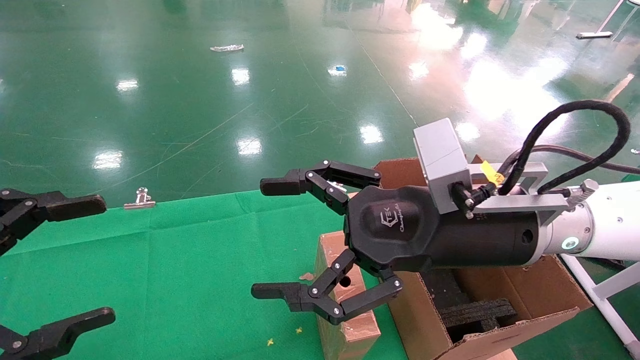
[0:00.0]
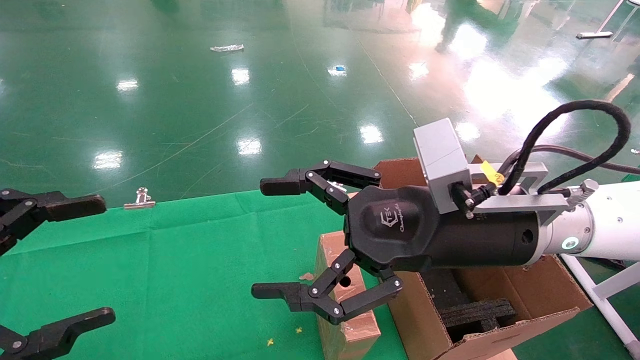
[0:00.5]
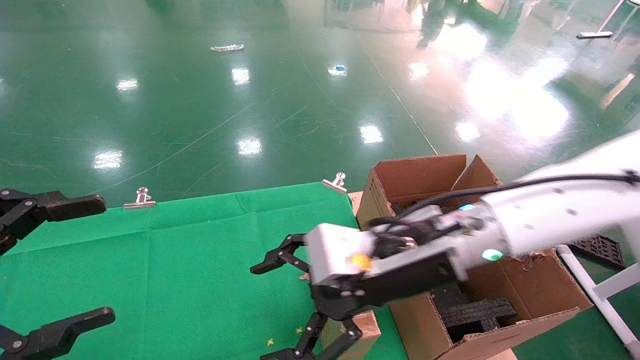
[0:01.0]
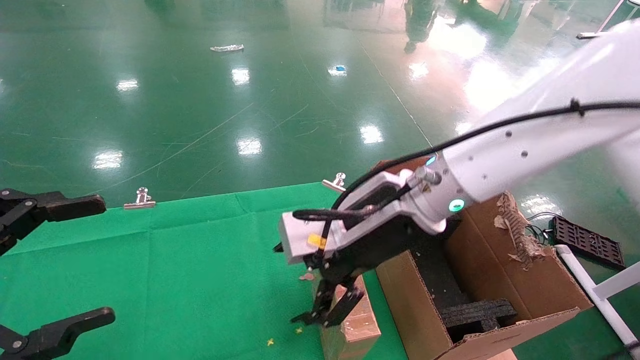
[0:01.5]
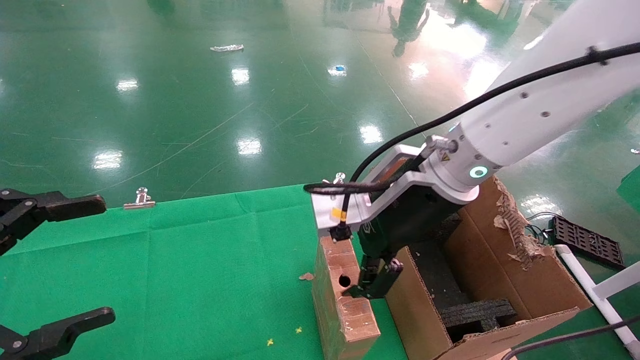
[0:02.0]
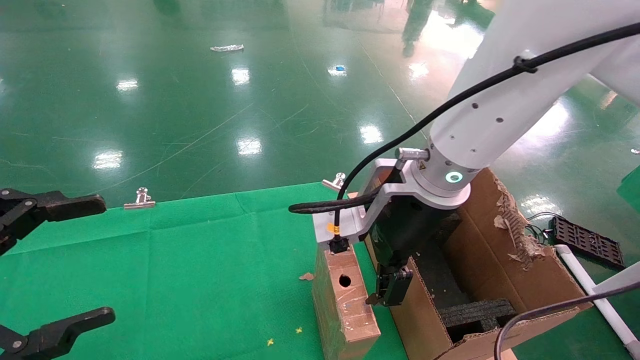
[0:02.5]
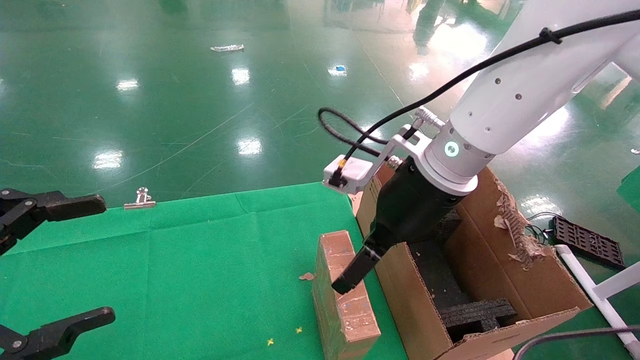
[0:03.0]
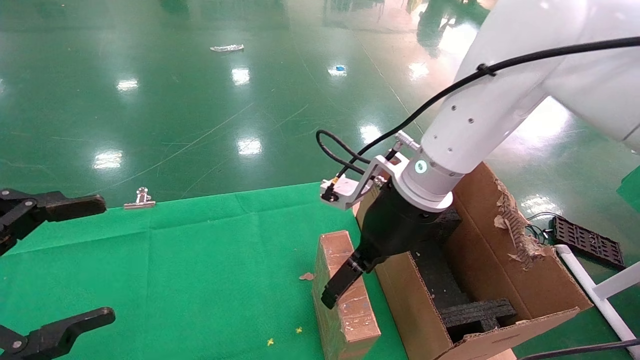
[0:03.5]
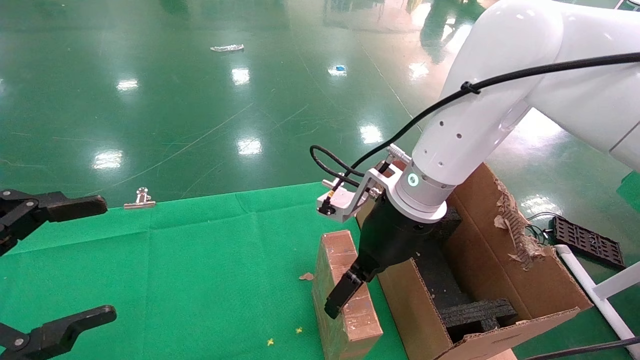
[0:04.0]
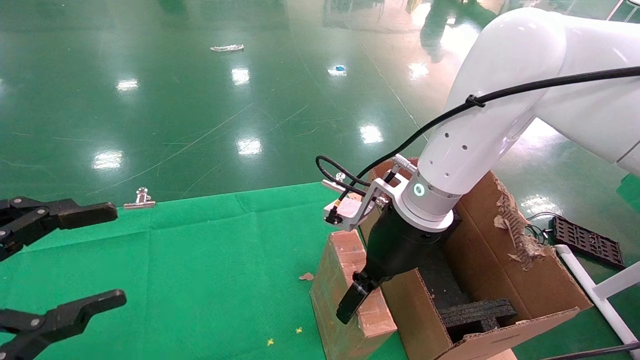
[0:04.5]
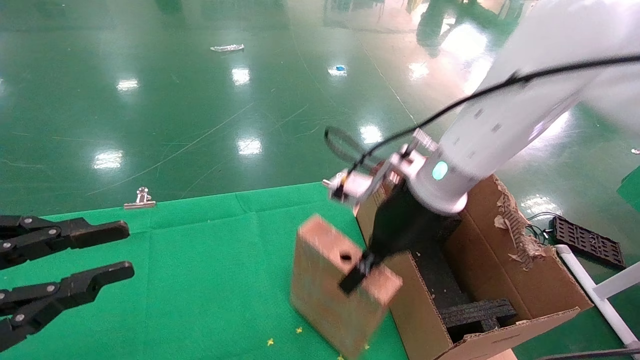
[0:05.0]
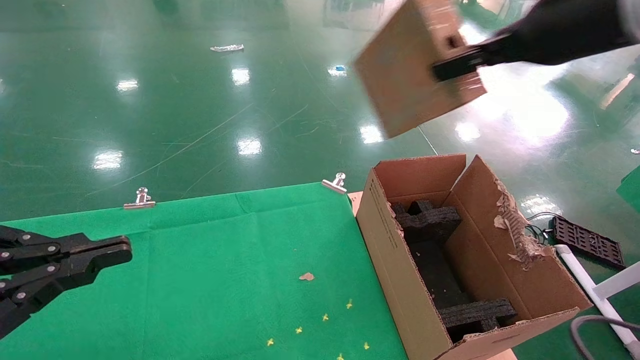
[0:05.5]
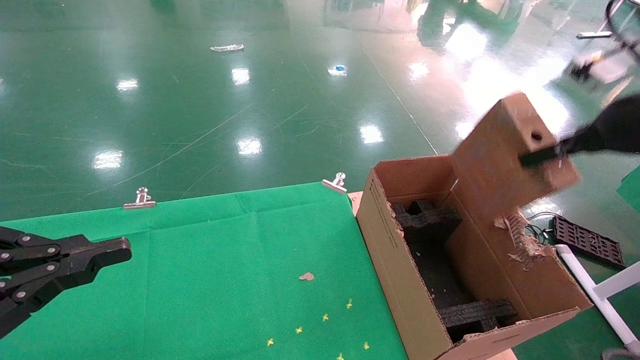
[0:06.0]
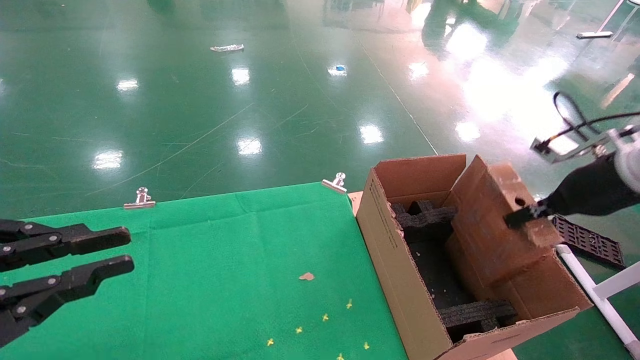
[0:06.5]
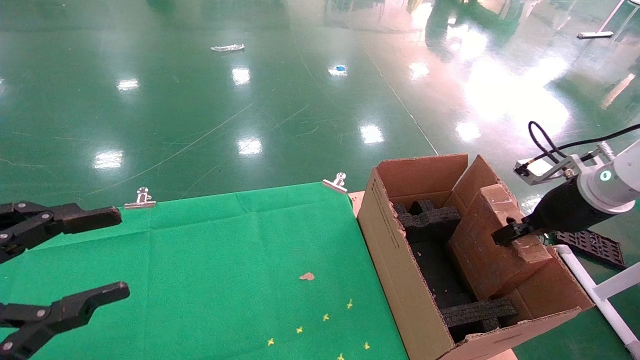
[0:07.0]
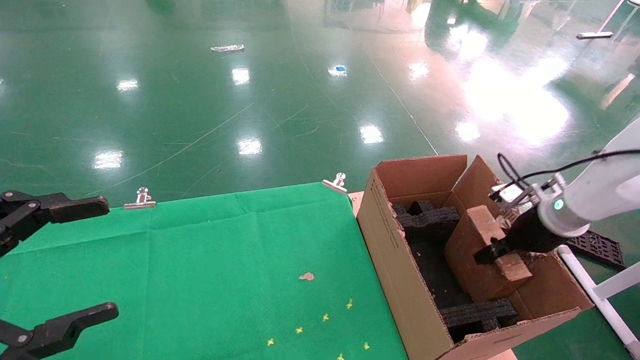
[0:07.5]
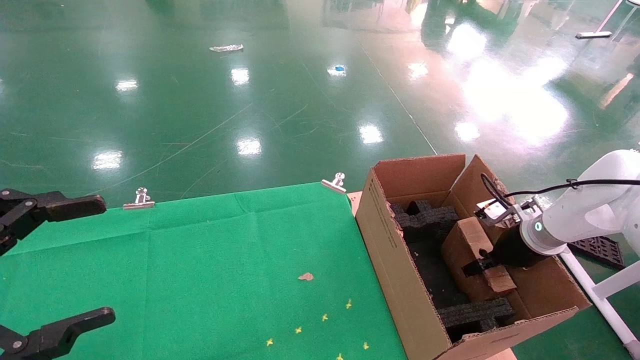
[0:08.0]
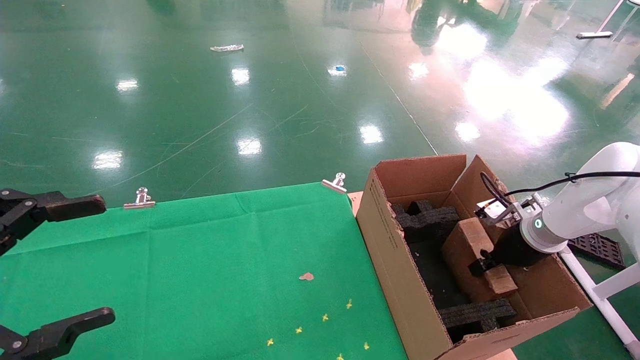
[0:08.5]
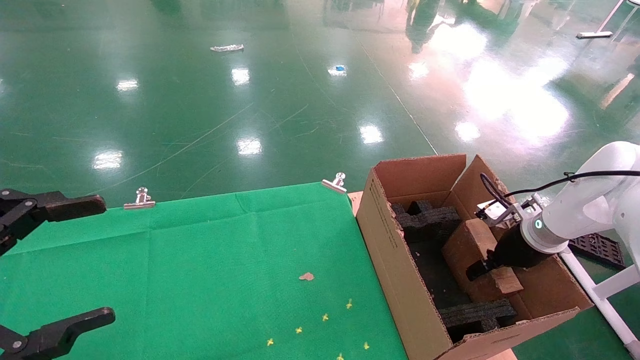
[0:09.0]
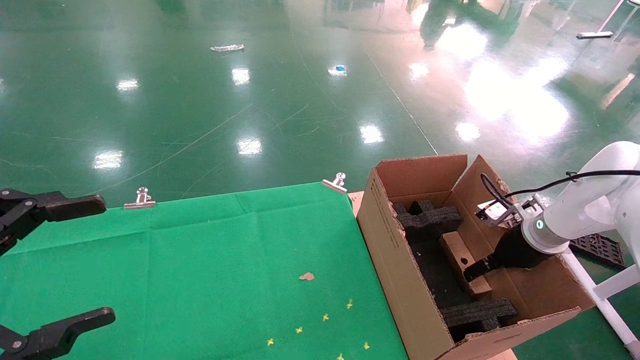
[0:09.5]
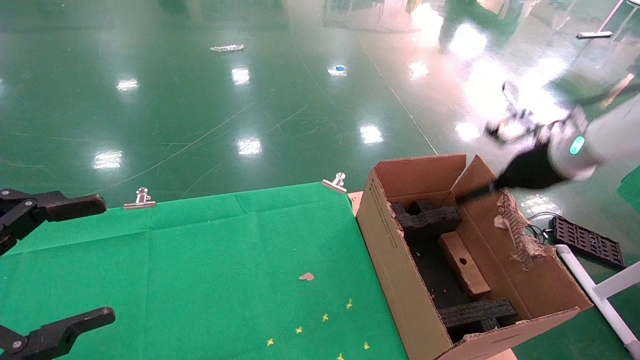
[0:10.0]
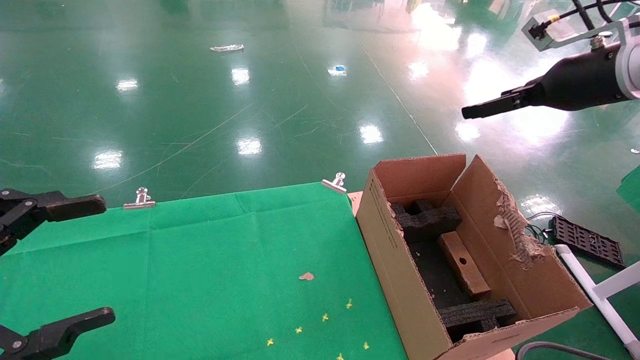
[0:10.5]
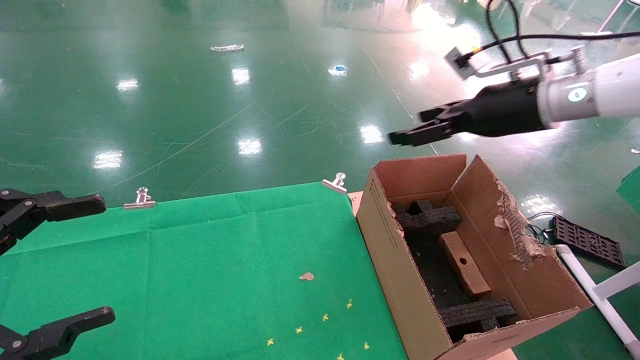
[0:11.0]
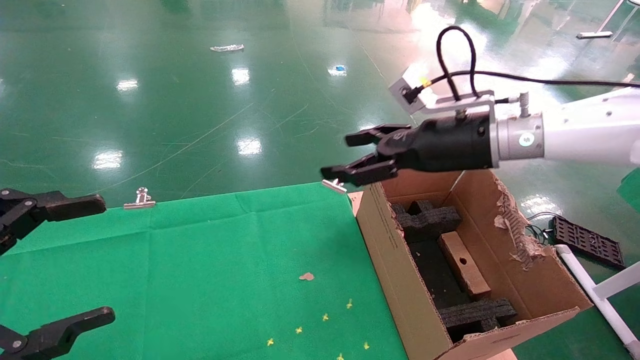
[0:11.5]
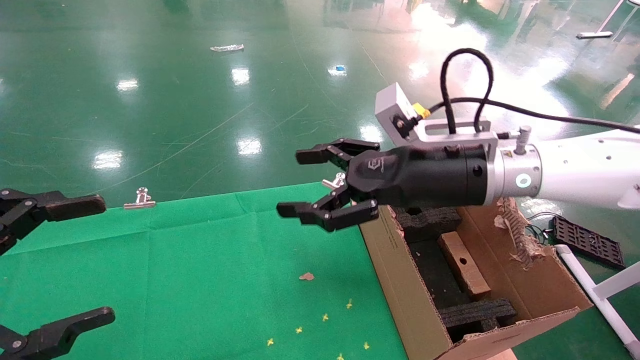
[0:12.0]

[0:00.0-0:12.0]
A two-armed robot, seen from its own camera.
Task of the whole recording: using a robotic arm to pick up a cardboard box and palace it the carton.
Step, 0:01.0 to 0:05.0: Pick up the mouse and the power cord paper box.
Step, 0:05.5 to 0:09.5: Place the mouse and the power cord paper box into the container.
0:00.0 to 0:02.0: The right gripper shifts some 5 cm forward.
0:02.0 to 0:04.0: The right gripper ends up approximately 5 cm from where it was.
0:04.0 to 0:06.0: The left gripper closes. Meanwhile the right gripper travels to the right by approximately 25 cm, and closes its fingers.
0:06.0 to 0:08.0: The left gripper opens, while the right gripper moves downward and forward, about 25 cm.
0:08.0 to 0:10.0: The right gripper is displaced upward by roughly 15 cm, and opens up.
0:10.0 to 0:12.0: The right gripper moves to the left, roughly 20 cm.

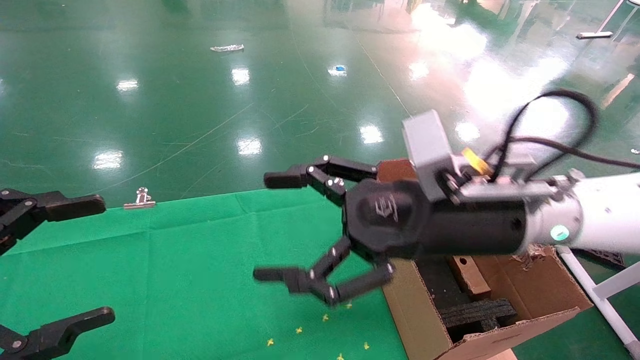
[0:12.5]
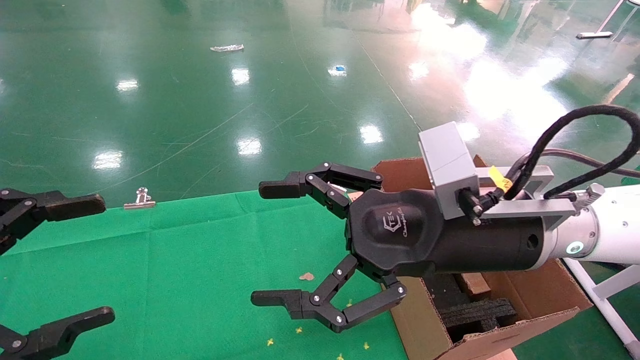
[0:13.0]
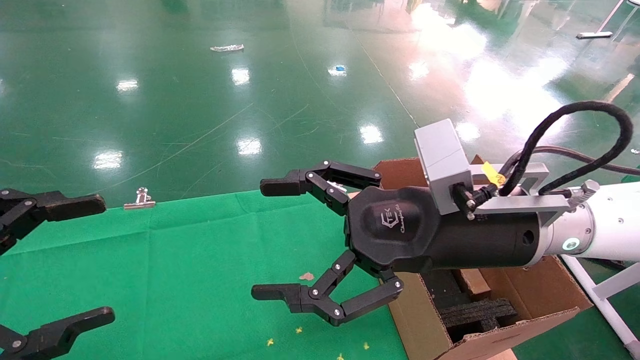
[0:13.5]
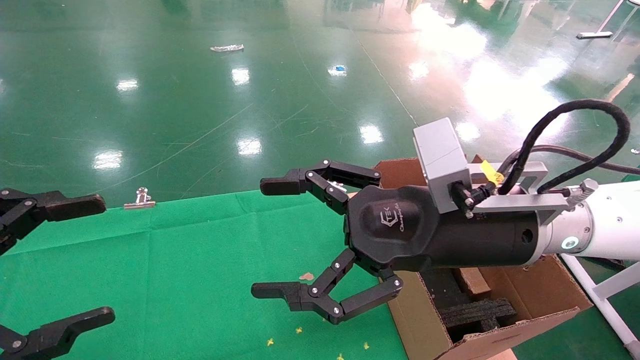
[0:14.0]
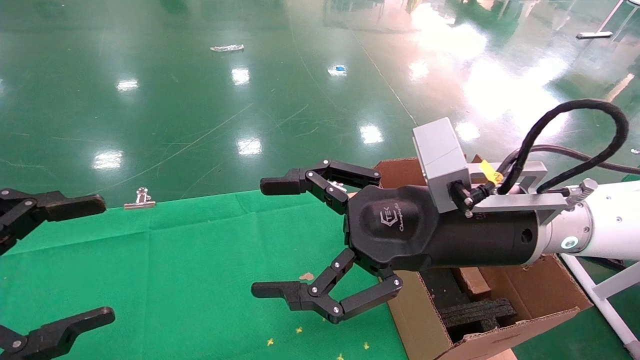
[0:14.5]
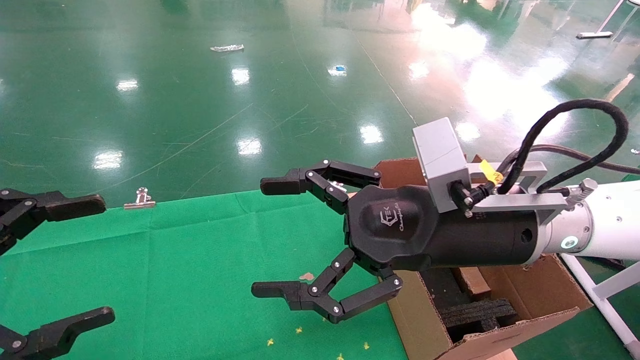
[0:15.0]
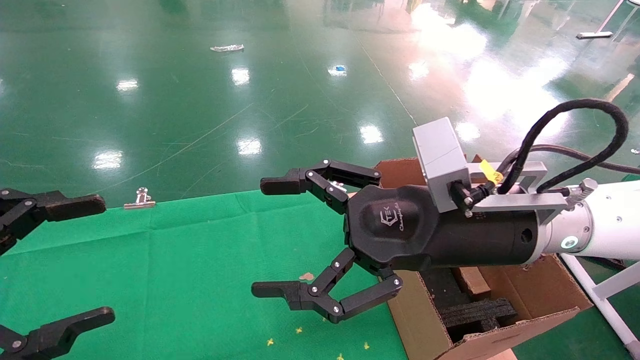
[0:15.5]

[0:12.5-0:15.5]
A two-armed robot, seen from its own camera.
Task of the whole recording: using a robotic arm to pick up a cardboard box and palace it the carton.
0:12.5 to 0:14.0: The grippers stay close to where they were, moving slightly.
0:14.0 to 0:15.5: Both grippers stay put.
